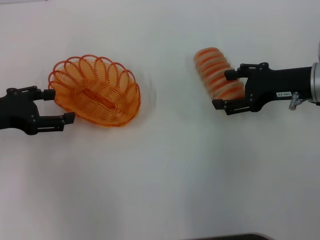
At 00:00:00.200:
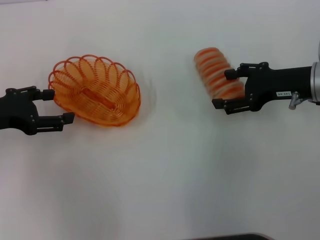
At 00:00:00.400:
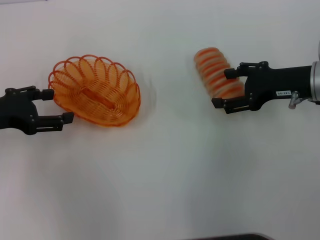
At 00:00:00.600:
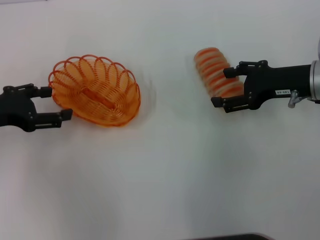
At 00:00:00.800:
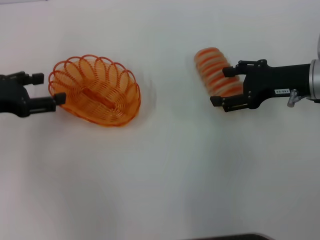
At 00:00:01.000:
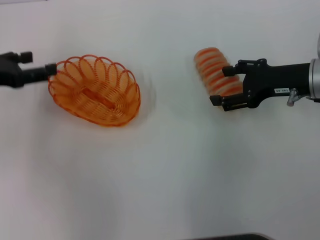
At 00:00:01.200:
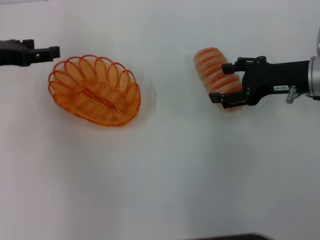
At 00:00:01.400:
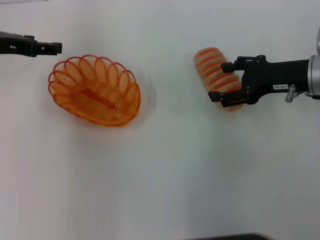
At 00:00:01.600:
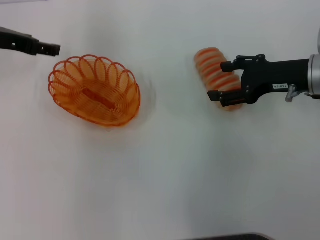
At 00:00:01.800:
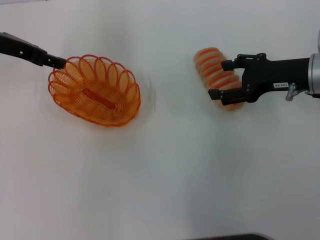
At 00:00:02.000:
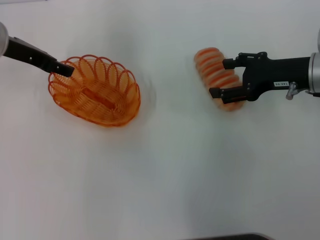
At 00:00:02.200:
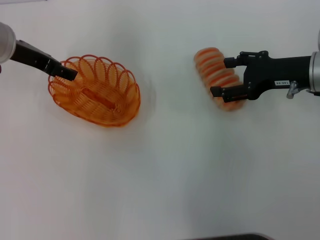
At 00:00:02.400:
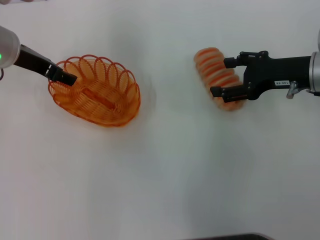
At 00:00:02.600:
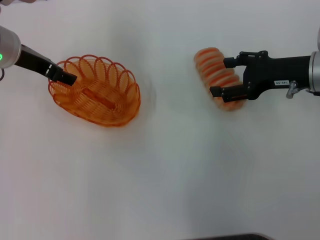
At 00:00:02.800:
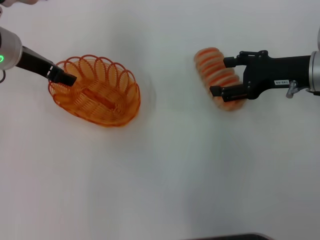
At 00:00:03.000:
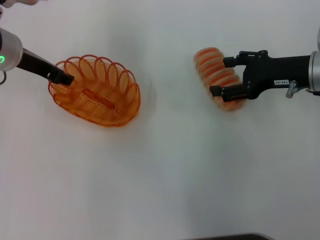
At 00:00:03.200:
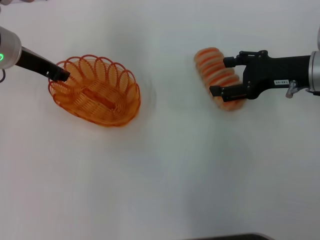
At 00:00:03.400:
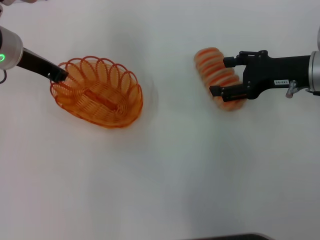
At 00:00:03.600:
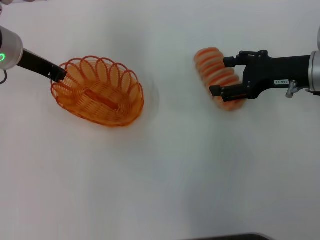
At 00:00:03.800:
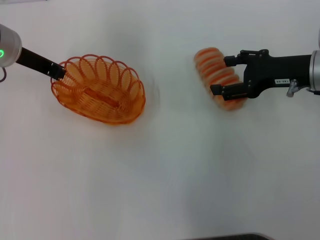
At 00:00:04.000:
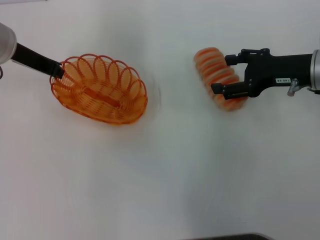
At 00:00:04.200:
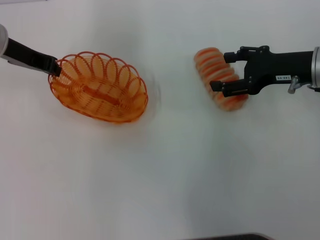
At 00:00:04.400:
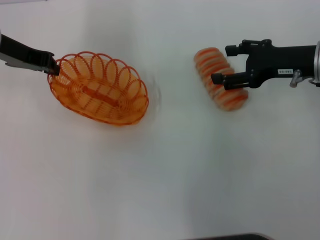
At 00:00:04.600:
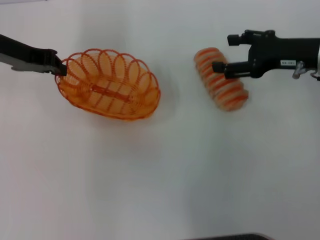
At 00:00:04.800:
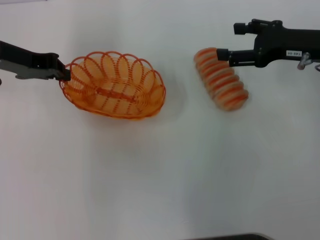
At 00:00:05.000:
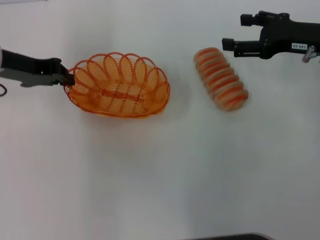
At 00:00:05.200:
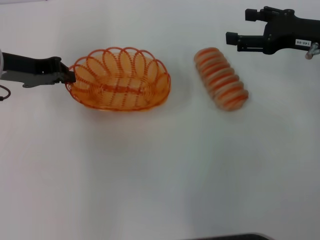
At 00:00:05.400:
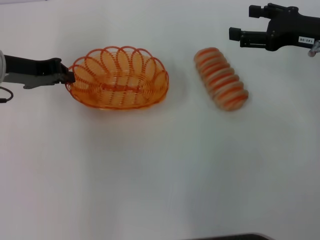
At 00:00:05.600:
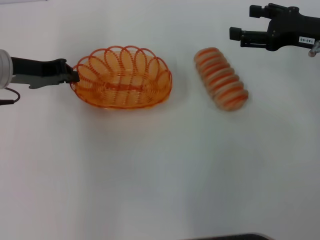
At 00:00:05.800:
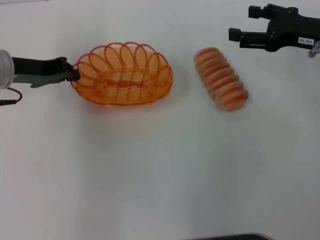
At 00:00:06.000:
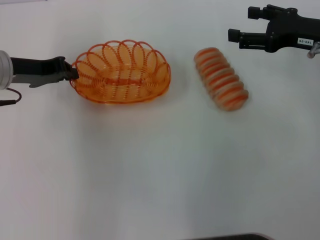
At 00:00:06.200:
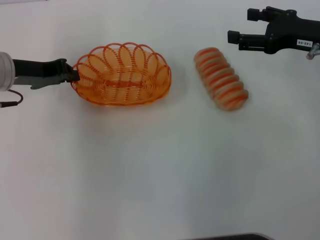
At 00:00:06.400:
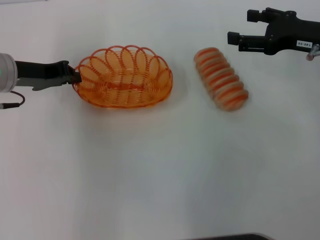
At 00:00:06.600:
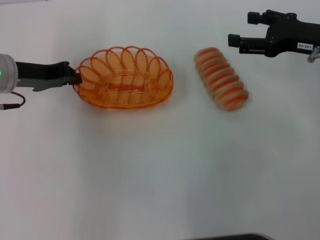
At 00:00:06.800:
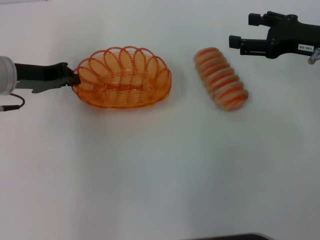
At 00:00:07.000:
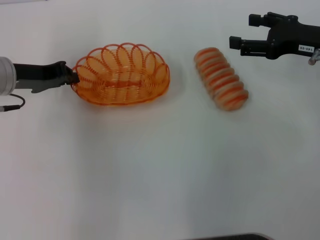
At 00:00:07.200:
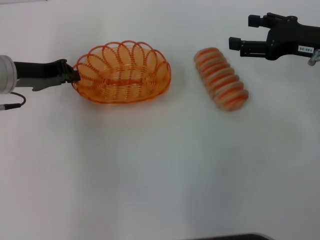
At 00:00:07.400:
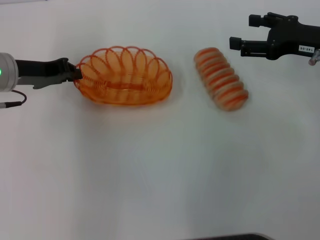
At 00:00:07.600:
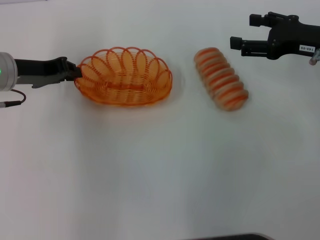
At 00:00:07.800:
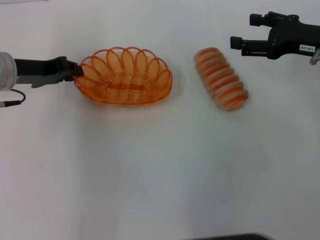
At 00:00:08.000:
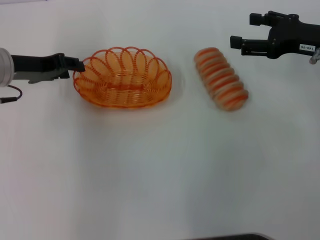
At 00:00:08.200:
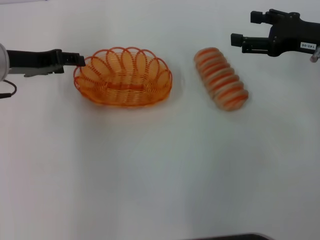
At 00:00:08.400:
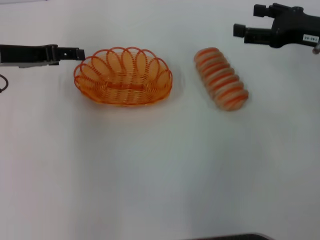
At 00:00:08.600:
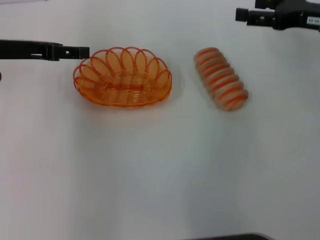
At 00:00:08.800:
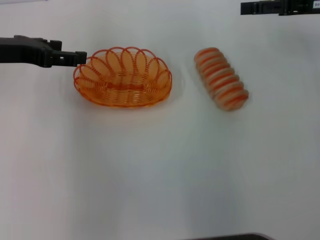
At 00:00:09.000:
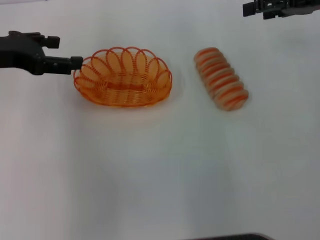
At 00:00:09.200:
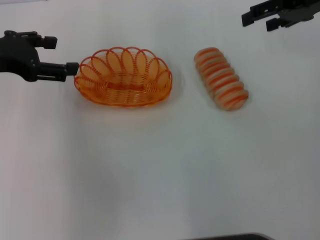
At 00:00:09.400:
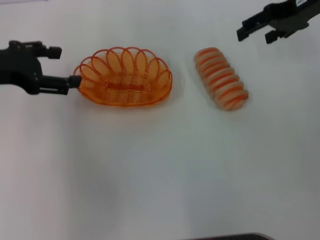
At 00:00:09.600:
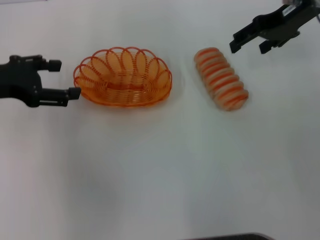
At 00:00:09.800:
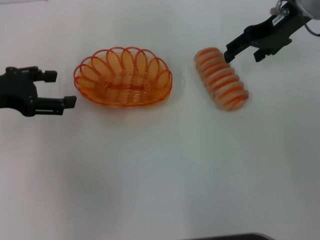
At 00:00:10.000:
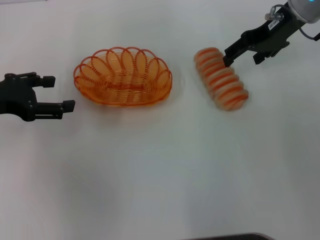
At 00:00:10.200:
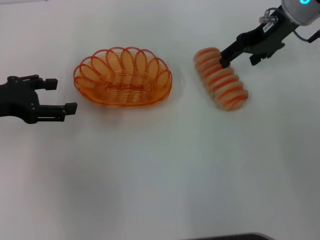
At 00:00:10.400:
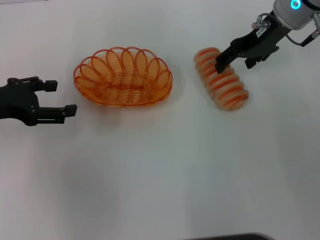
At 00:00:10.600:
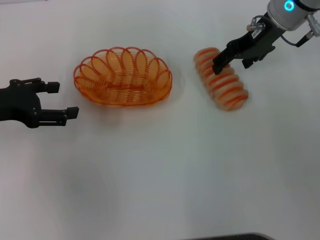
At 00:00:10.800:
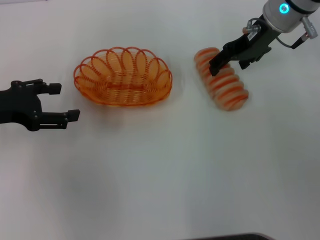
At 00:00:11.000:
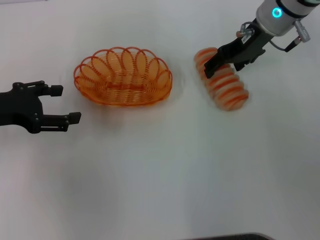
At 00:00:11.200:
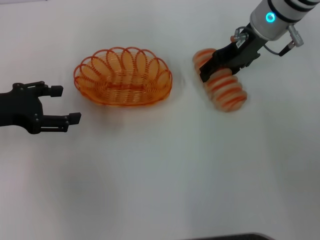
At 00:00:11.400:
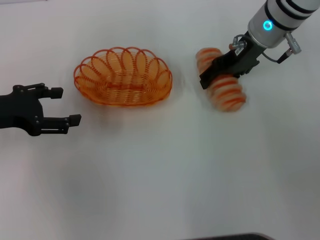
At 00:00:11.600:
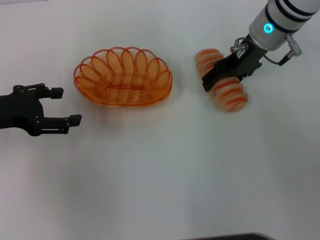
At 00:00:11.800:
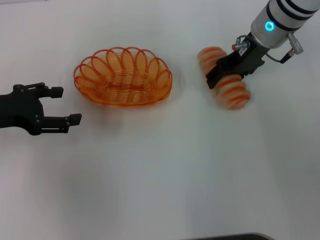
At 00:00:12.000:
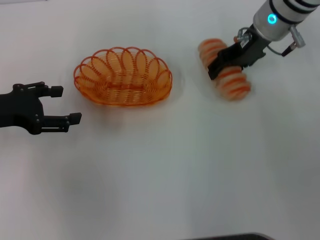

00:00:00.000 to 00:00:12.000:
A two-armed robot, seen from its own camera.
Step, 00:00:00.000 to 00:00:04.600: Pick up the basket with the left gripper.
Step, 00:00:05.000 to 00:00:08.800: Place the basket in the center of view with the left gripper.
00:00:00.000 to 00:00:01.600: The left gripper moves forward and upward, roughly 10 cm.
00:00:01.600 to 00:00:03.000: The left gripper ends up approximately 5 cm from where it was.
00:00:03.000 to 00:00:04.400: The left gripper closes its fingers.
00:00:04.400 to 00:00:06.000: The left gripper heads downward, covering some 5 cm.
00:00:06.000 to 00:00:07.600: Both grippers stay put.
00:00:07.600 to 00:00:09.000: The left gripper travels upward by roughly 5 cm, and opens up; the right gripper is displaced upward and forward by some 10 cm.
00:00:09.000 to 00:00:10.400: The left gripper goes about 5 cm downward; the right gripper is displaced to the left by approximately 10 cm.
00:00:10.400 to 00:00:12.000: The grippers move only a little.

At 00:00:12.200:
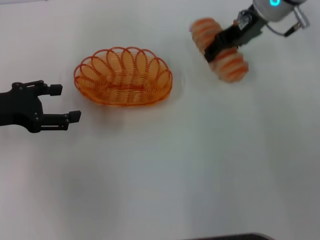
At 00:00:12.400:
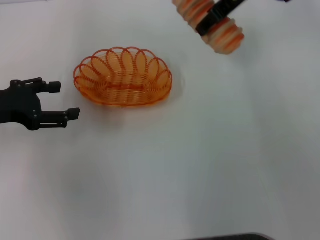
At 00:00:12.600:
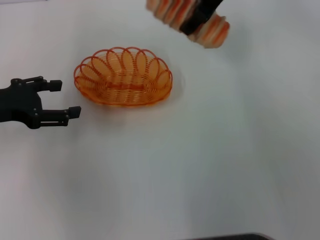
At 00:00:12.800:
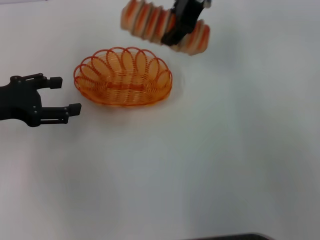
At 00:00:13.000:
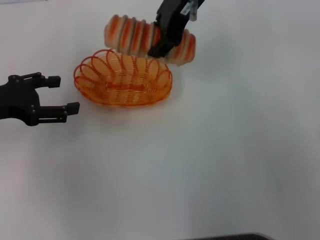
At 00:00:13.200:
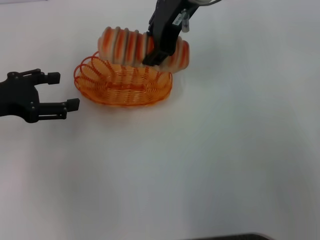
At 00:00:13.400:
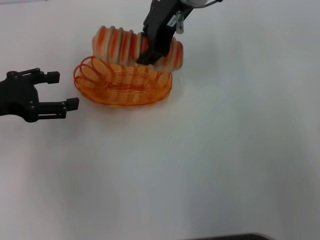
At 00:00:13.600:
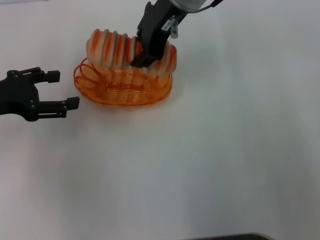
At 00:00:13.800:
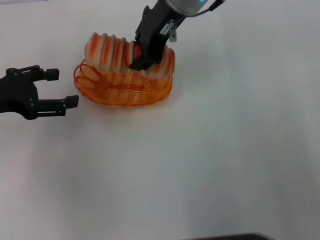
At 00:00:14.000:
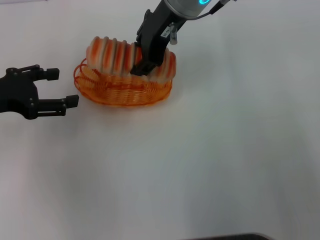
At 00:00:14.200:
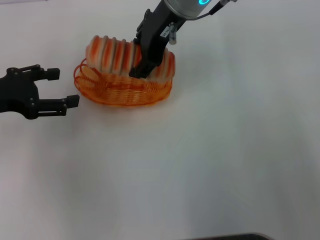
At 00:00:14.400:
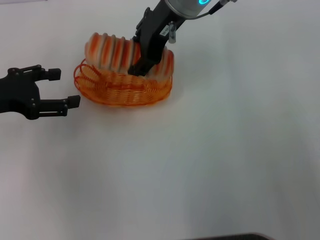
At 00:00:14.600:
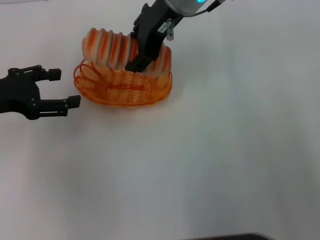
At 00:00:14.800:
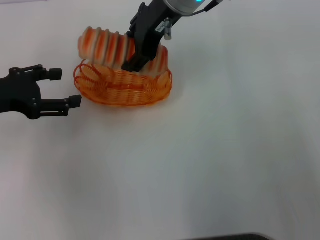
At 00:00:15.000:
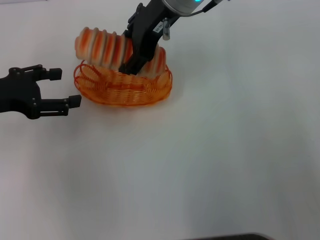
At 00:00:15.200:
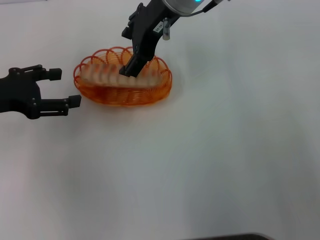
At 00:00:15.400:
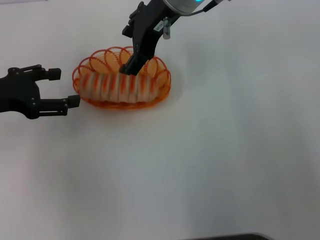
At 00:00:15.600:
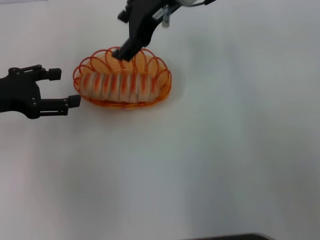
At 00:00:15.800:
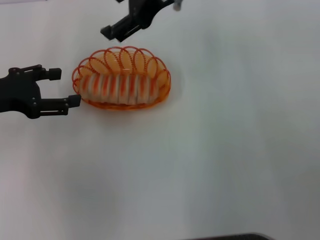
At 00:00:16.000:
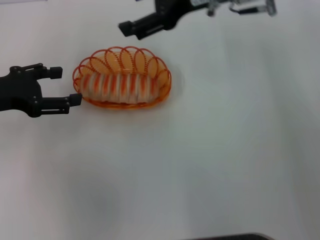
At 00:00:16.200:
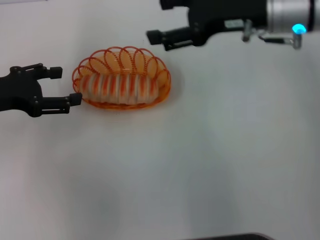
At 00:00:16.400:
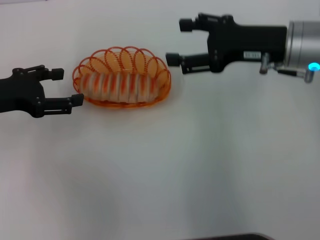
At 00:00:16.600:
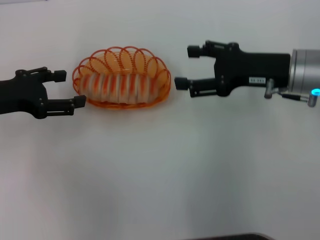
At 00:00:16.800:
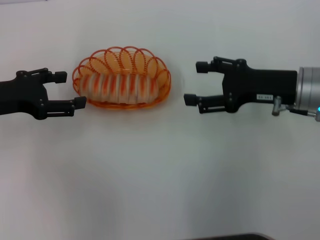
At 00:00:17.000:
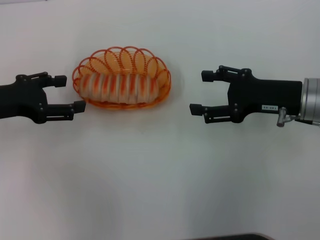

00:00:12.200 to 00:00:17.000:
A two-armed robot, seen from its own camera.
Step, 00:00:12.200 to 00:00:15.600: Place the long bread into the basket with the right gripper.
00:00:12.200 to 00:00:13.800: The right gripper heads to the left, covering about 10 cm, and closes up.
00:00:13.800 to 00:00:15.400: The right gripper opens.
00:00:15.400 to 00:00:17.000: The right gripper travels to the right, downward and backward by some 25 cm.
